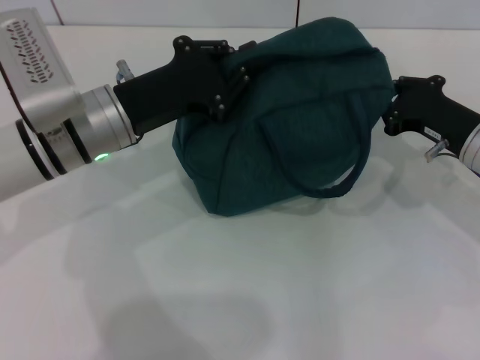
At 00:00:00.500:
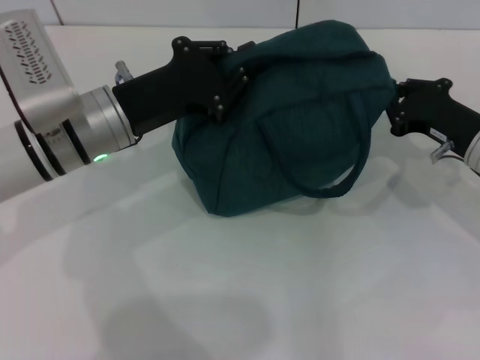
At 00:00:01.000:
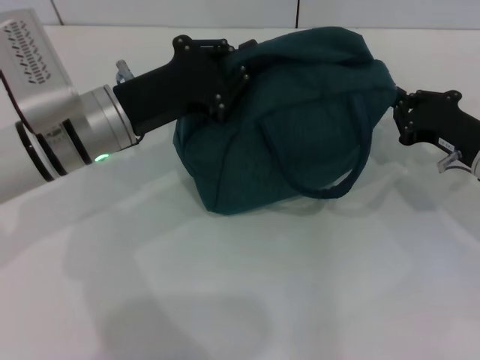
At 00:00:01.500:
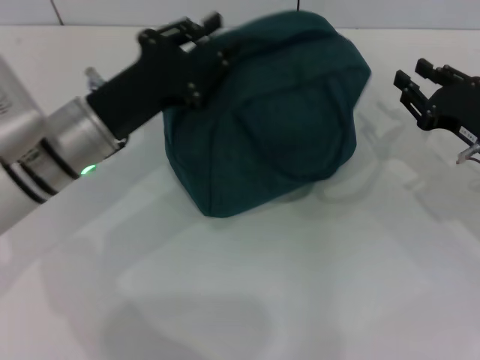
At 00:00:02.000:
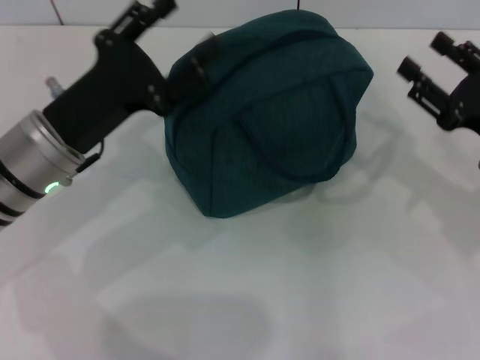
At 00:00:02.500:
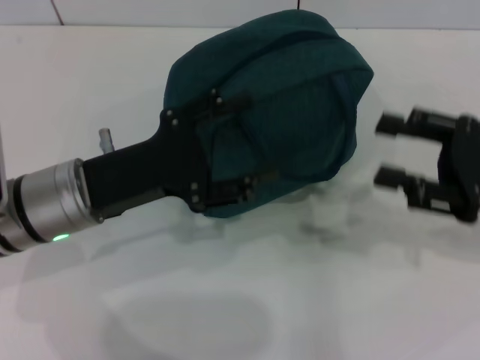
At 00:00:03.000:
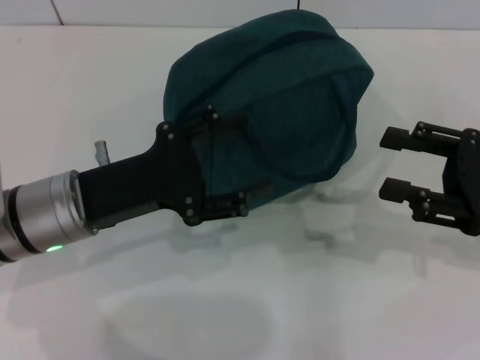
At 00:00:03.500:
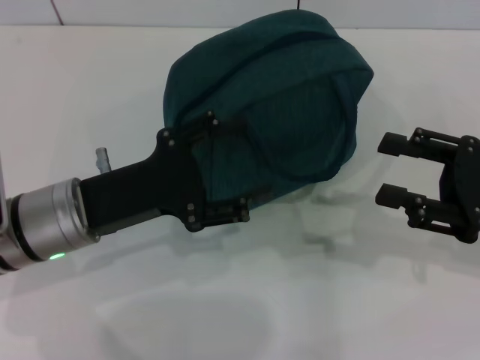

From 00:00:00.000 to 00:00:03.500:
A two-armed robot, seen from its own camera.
From 00:00:00.000 to 00:00:02.000: The left gripper moves about 5 cm, and opens its fingers. The right gripper goes about 5 cm backward, and opens.
